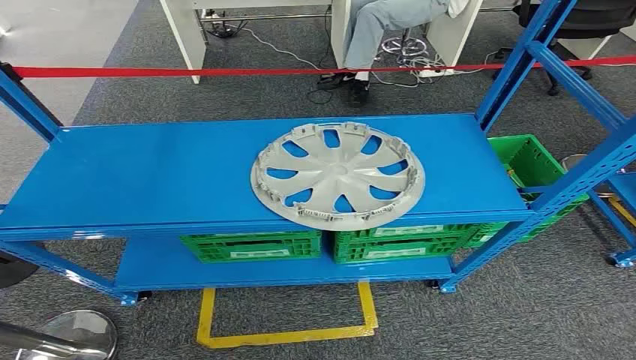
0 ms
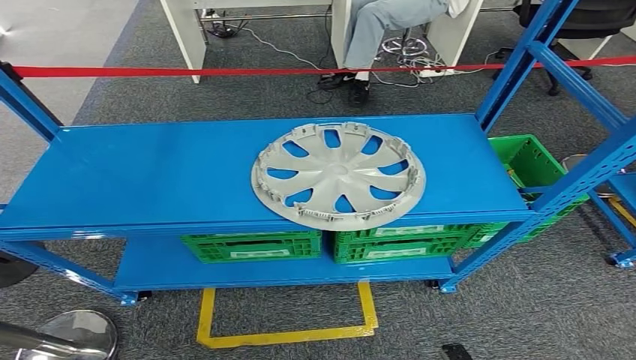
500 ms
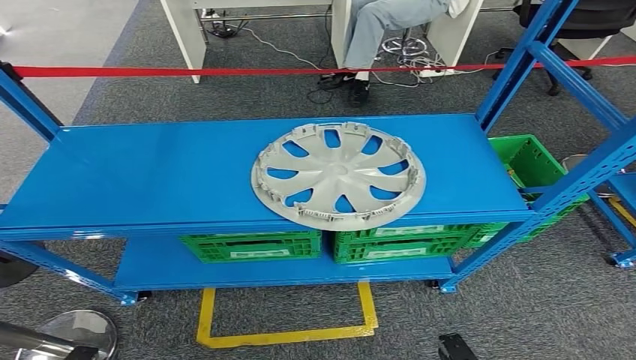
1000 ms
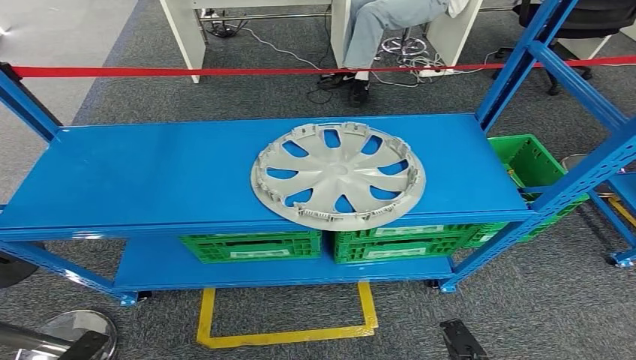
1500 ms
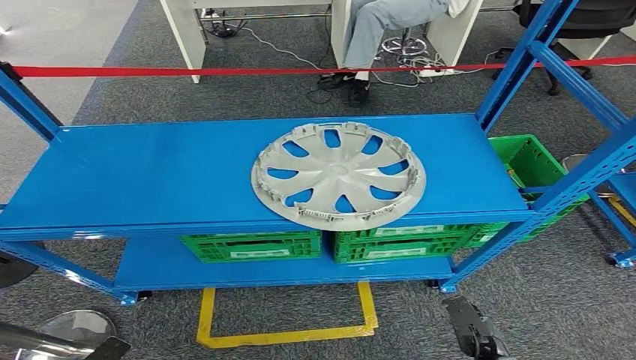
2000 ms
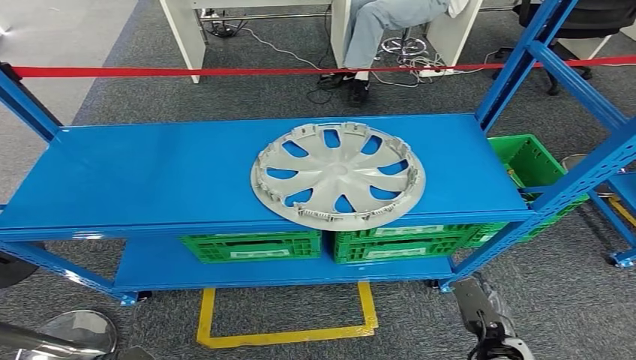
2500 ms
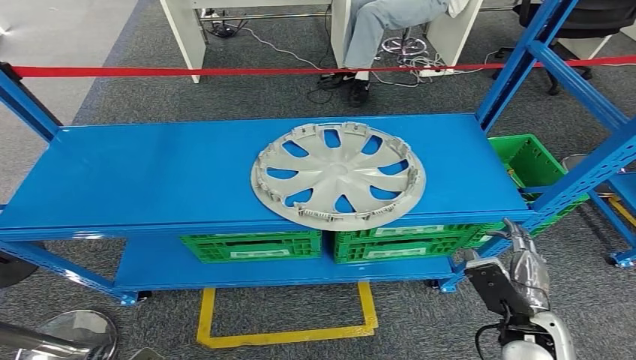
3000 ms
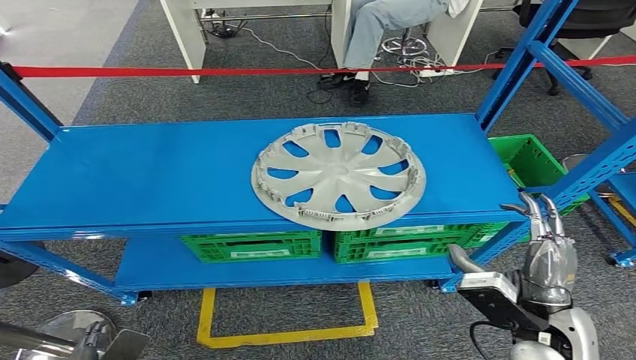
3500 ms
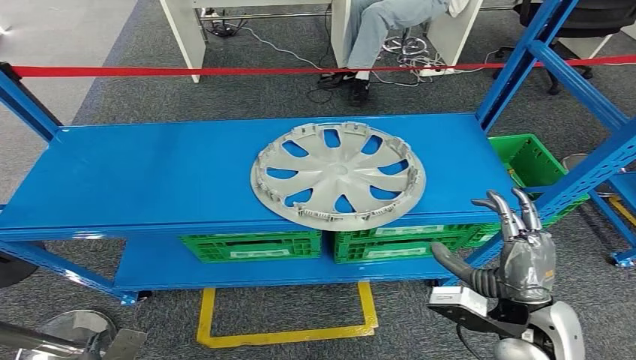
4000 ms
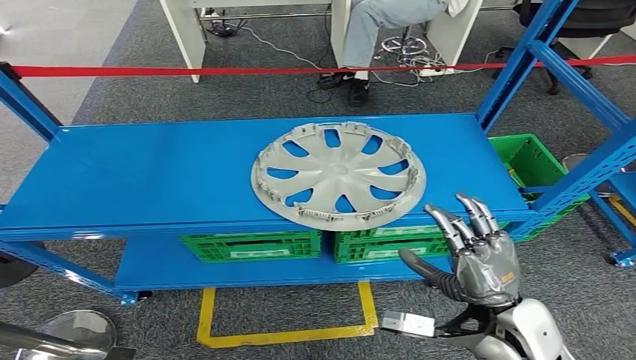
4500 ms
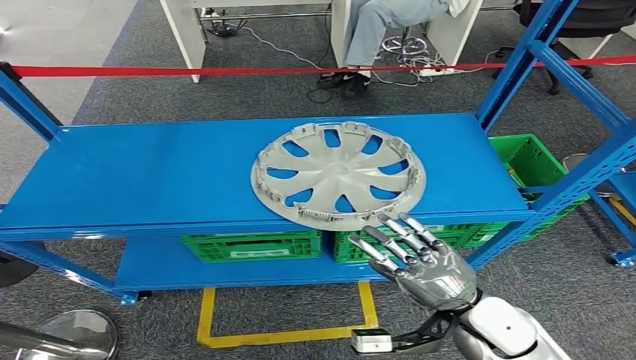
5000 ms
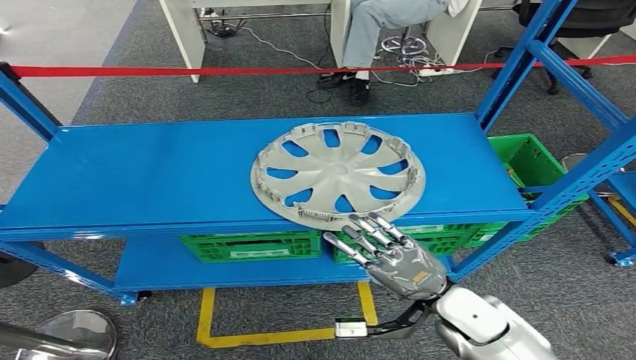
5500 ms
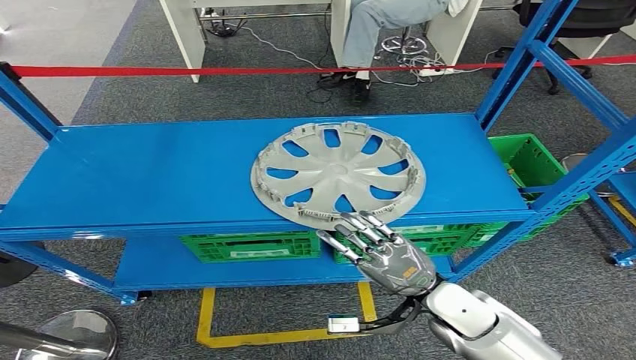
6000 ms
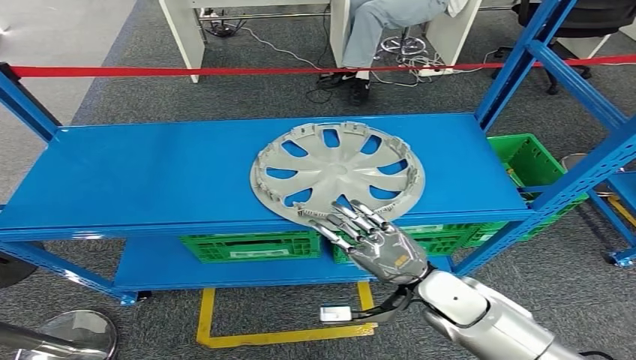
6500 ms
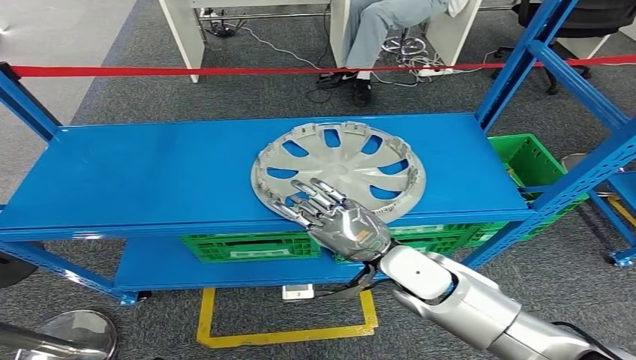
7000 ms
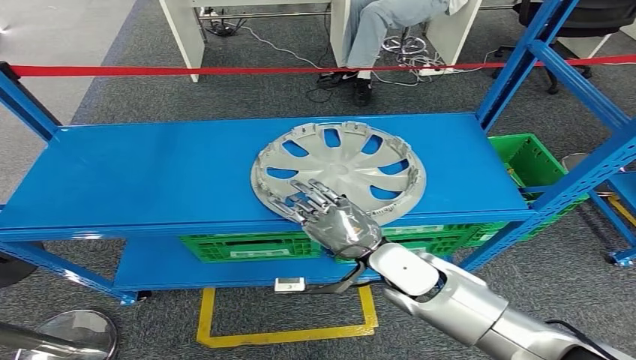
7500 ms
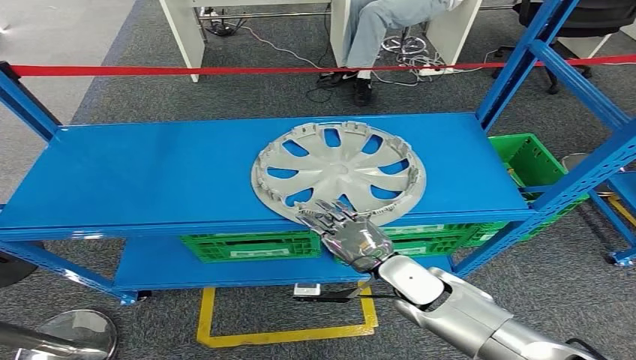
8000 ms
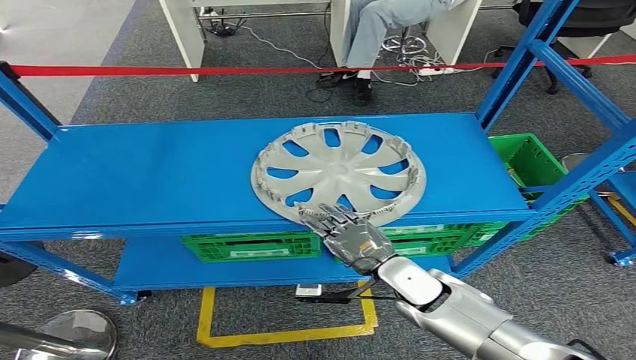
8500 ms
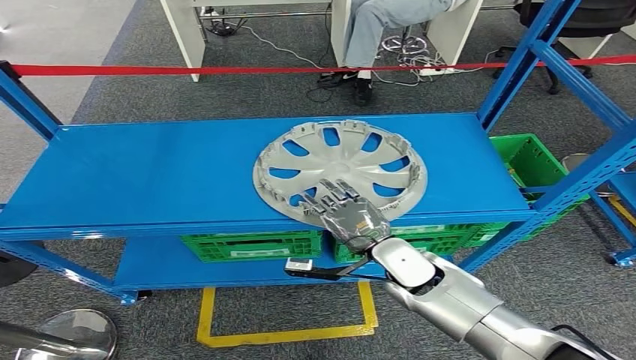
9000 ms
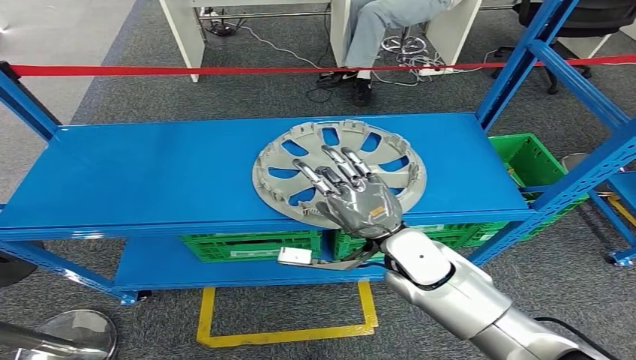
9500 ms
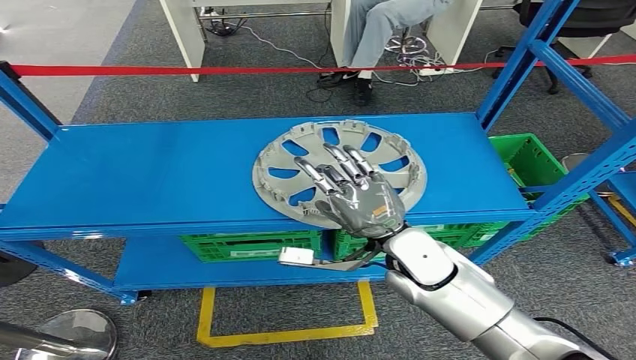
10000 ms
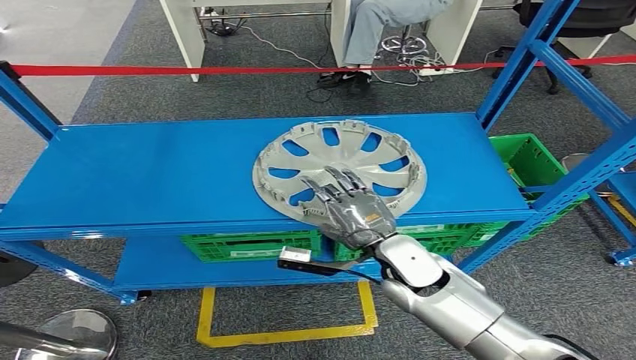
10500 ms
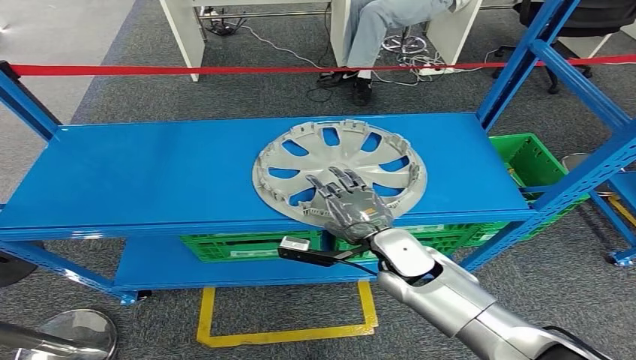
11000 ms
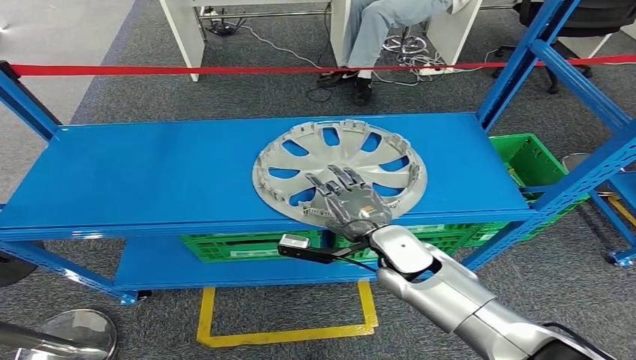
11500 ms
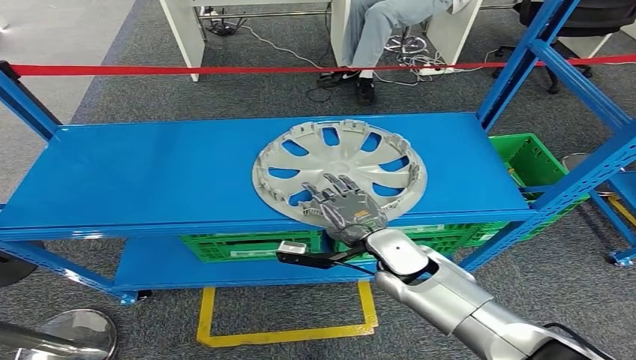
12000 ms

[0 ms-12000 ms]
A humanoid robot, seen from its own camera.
2000 ms to 4000 ms: The right hand shifts some 20 cm upward. The left hand travels to the right by approximately 5 cm.
4000 ms to 6000 ms: The right hand travels to the left, downward and forward by approximately 10 cm; the left hand moves downward and backward, roughly 10 cm.
6000 ms to 8000 ms: The left hand is displaced upward by approximately 10 cm. Meanwhile the right hand shifts by roughly 5 cm.
8000 ms to 10000 ms: The right hand heads upward, covering about 10 cm.
10000 ms to 12000 ms: The right hand heads downward, covering some 5 cm.

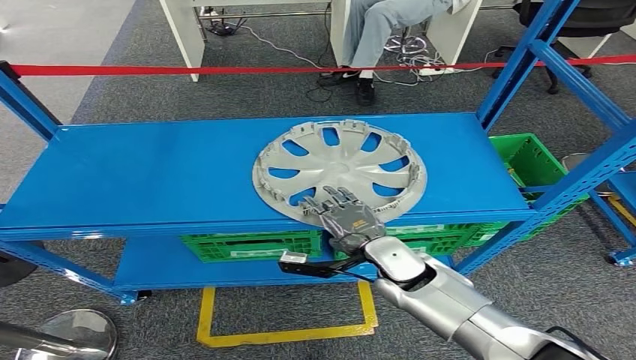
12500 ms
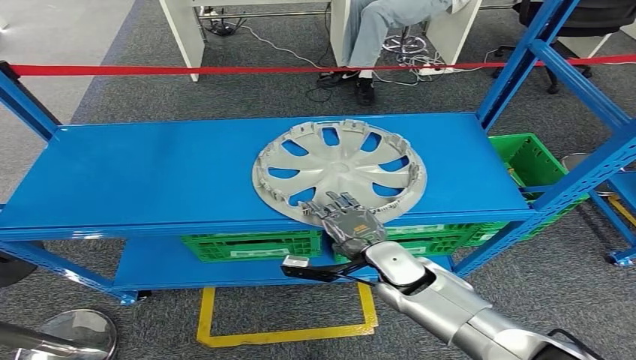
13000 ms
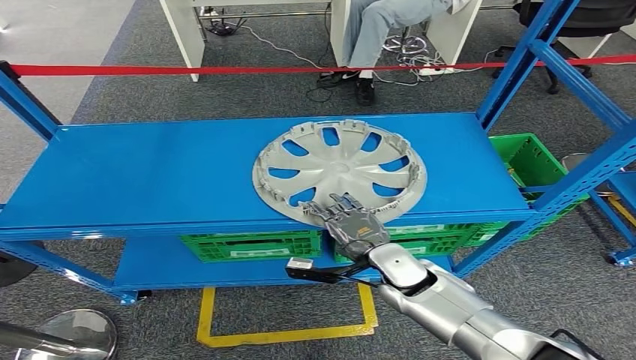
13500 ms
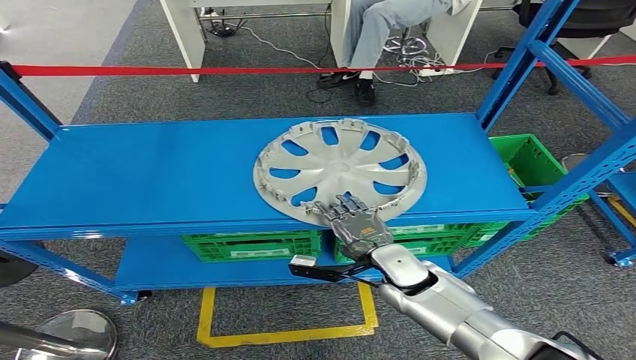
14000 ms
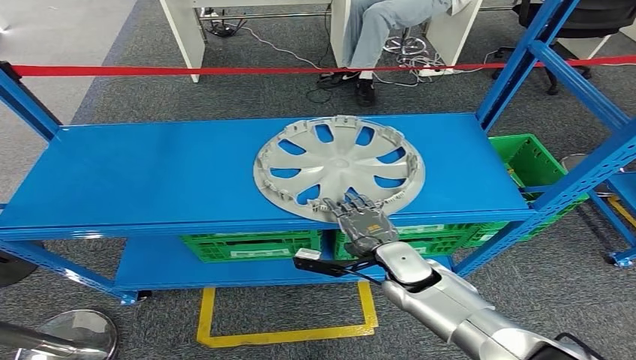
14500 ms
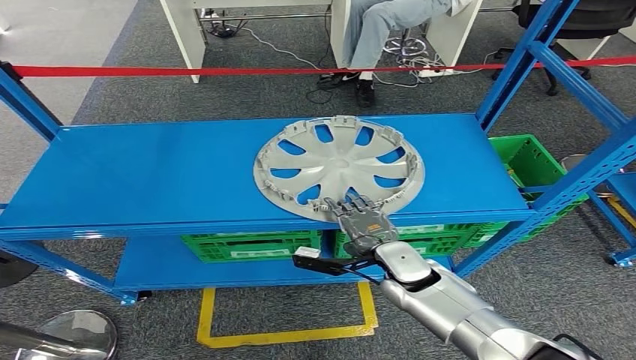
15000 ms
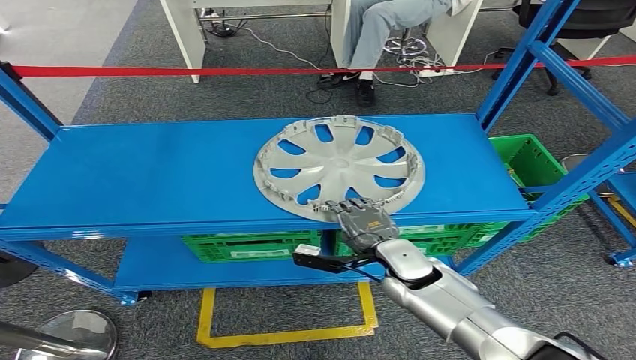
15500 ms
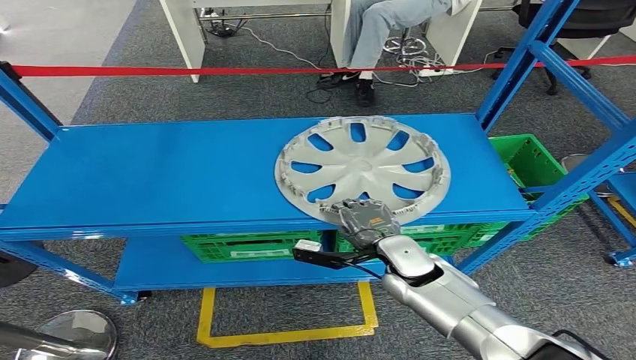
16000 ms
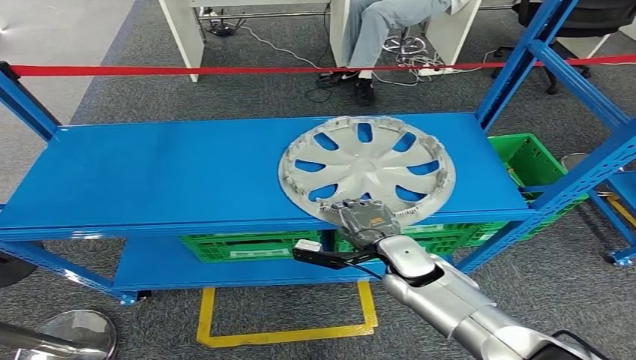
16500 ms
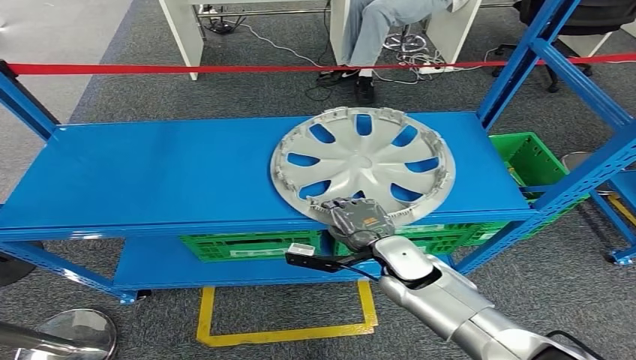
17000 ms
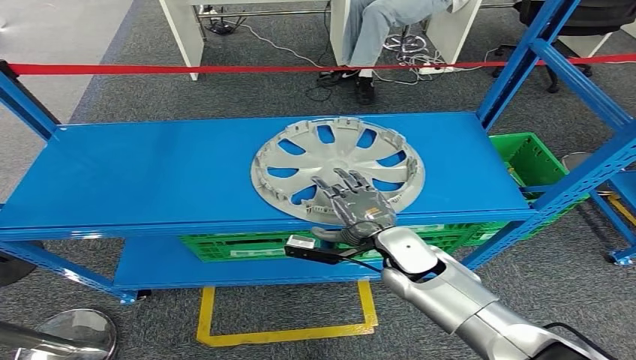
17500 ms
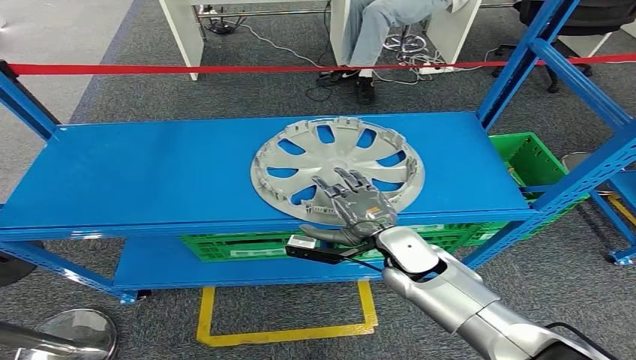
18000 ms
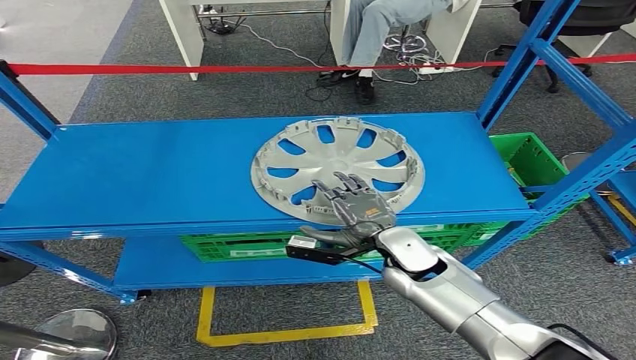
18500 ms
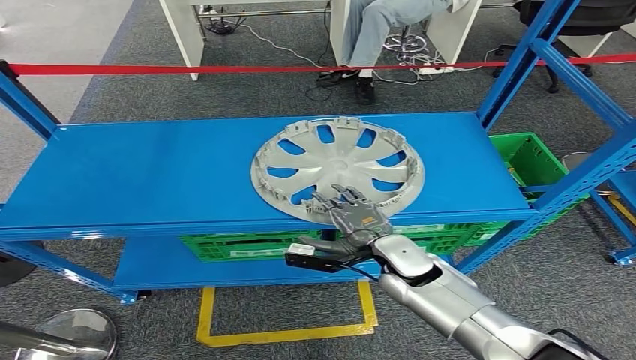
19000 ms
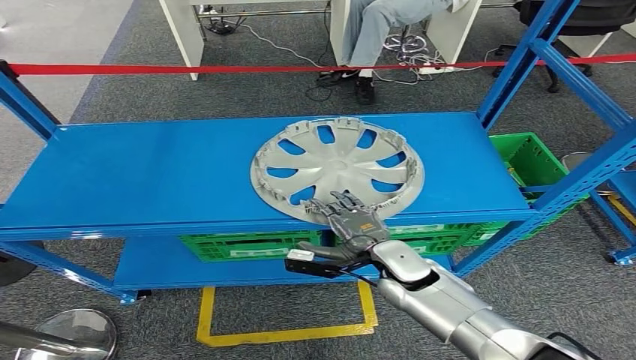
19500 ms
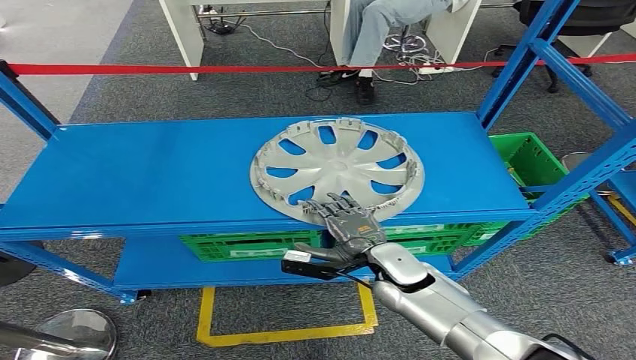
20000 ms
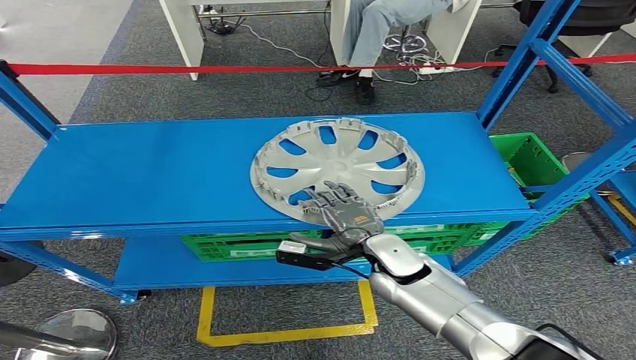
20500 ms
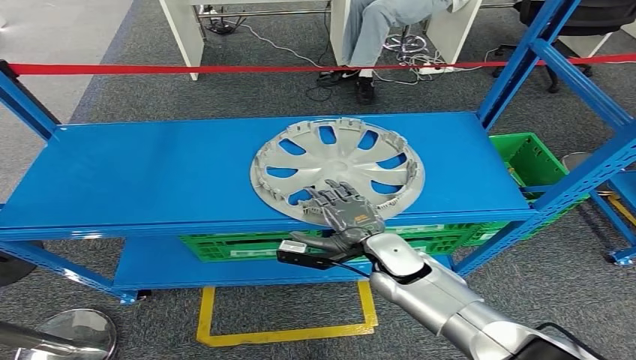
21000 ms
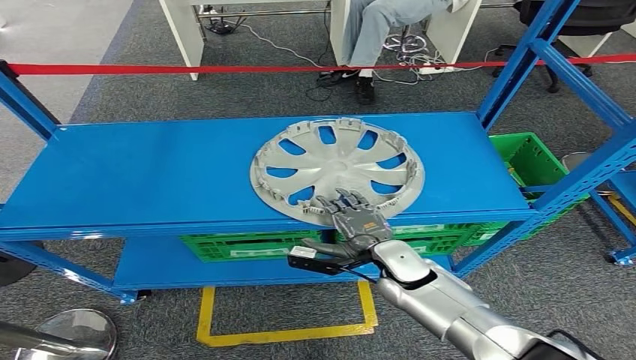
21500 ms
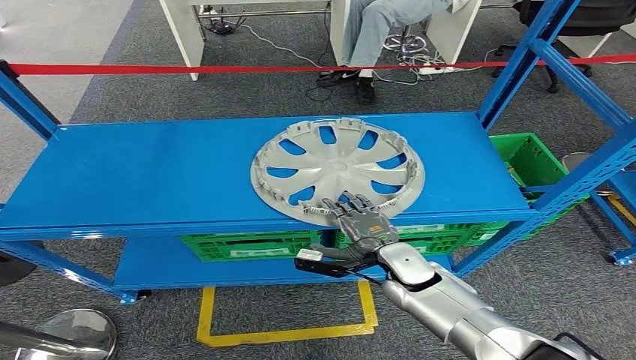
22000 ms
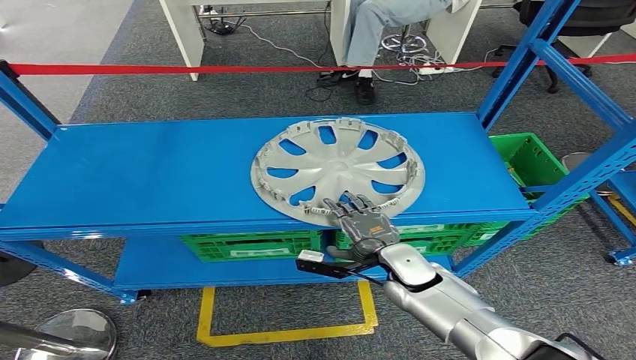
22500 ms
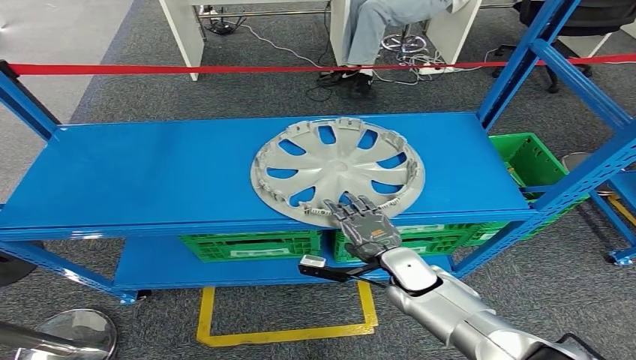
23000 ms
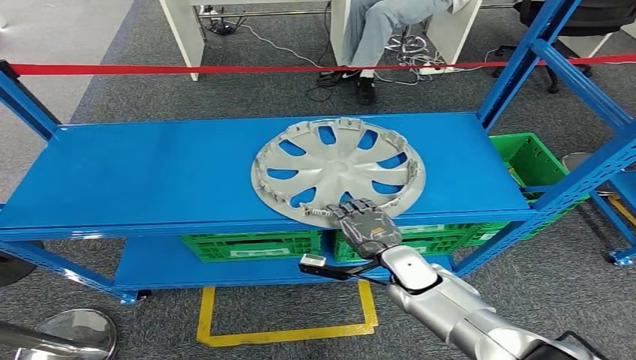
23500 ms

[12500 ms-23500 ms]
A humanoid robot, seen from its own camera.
Step, 12500 ms to 18000 ms: Pick up the small component from the shelf.
12500 ms to 21500 ms: The hands make only small movements.
21500 ms to 23500 ms: The hands move only a little.
